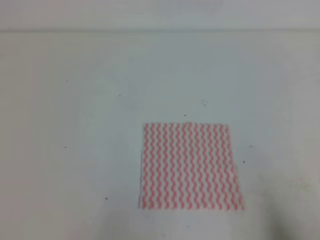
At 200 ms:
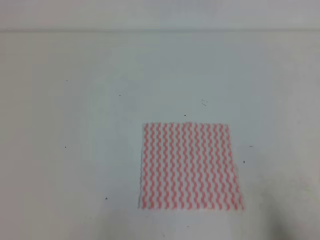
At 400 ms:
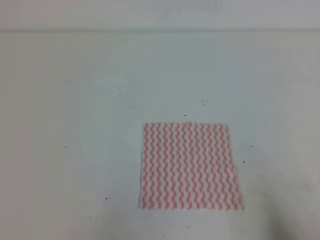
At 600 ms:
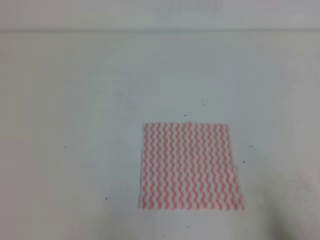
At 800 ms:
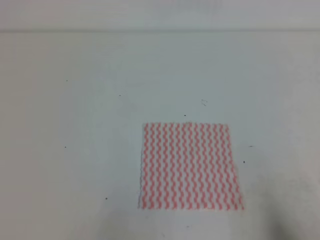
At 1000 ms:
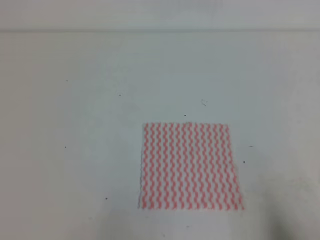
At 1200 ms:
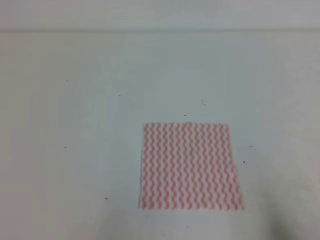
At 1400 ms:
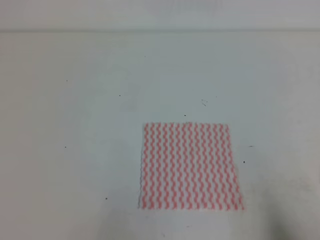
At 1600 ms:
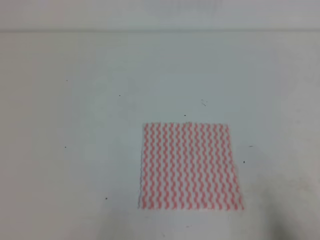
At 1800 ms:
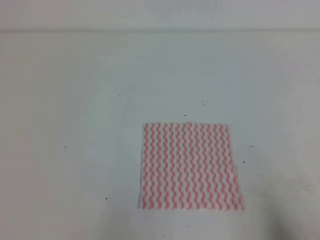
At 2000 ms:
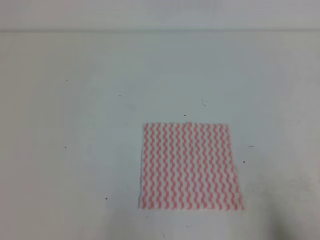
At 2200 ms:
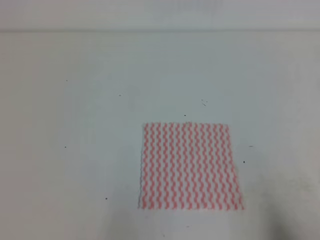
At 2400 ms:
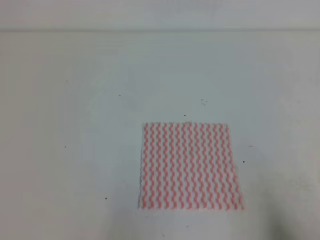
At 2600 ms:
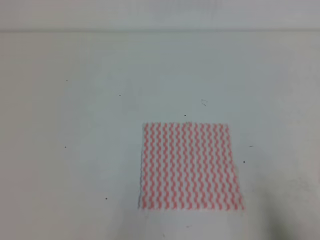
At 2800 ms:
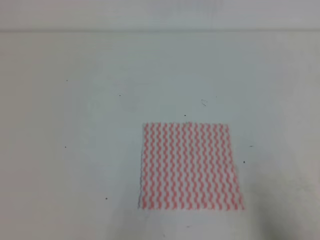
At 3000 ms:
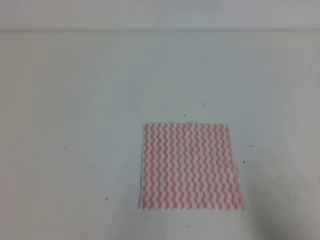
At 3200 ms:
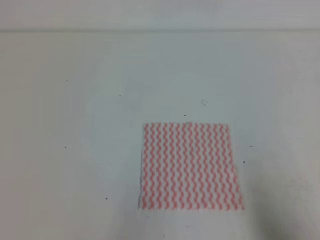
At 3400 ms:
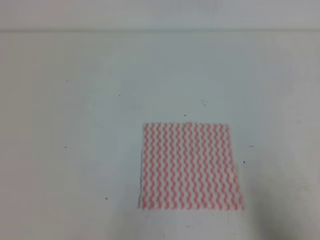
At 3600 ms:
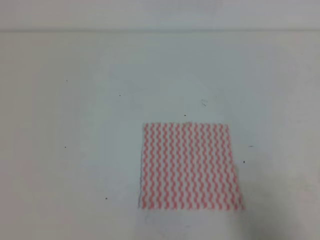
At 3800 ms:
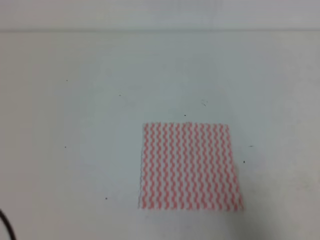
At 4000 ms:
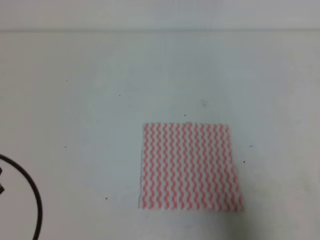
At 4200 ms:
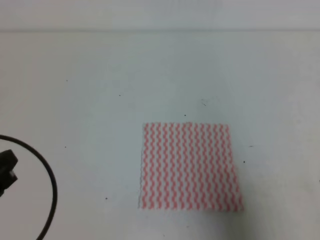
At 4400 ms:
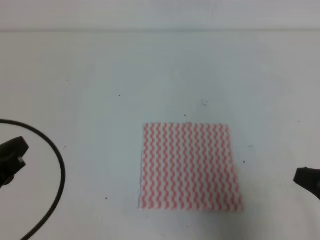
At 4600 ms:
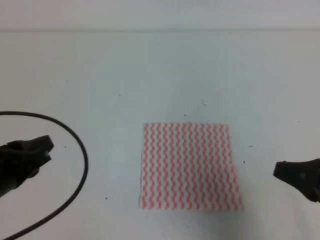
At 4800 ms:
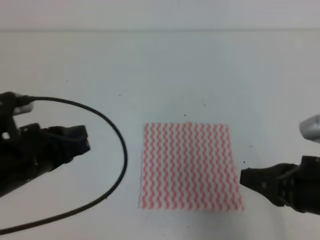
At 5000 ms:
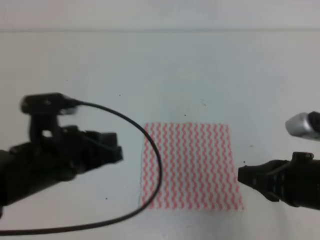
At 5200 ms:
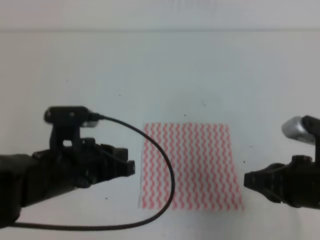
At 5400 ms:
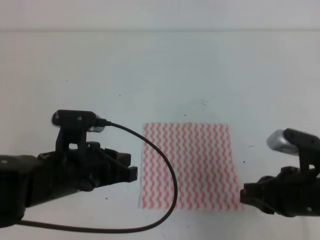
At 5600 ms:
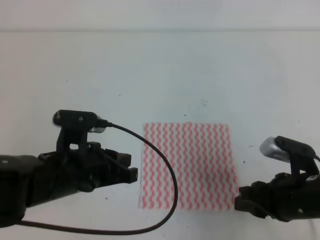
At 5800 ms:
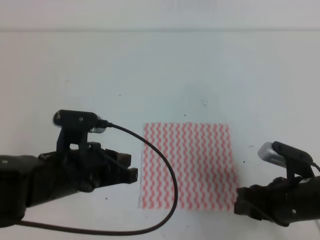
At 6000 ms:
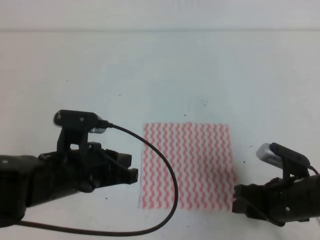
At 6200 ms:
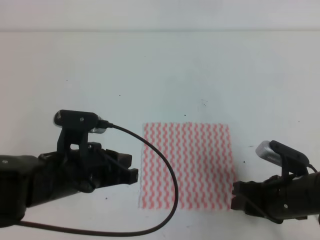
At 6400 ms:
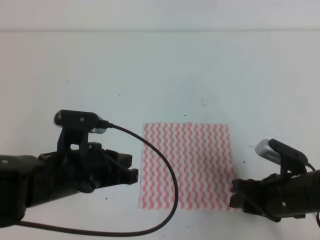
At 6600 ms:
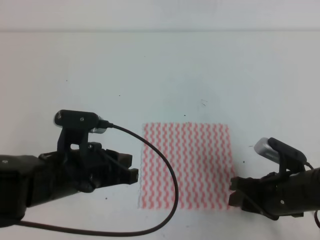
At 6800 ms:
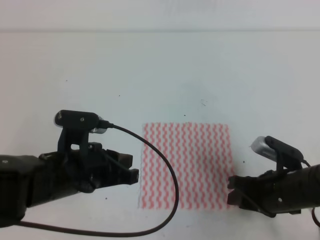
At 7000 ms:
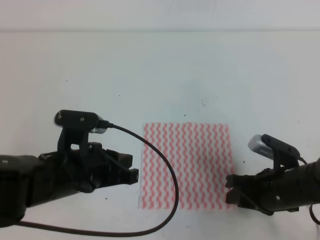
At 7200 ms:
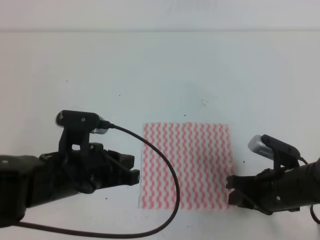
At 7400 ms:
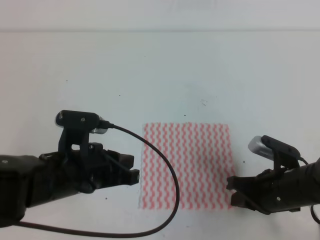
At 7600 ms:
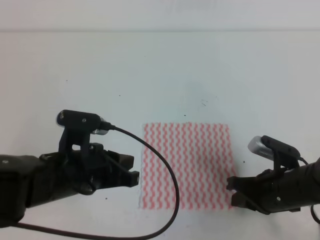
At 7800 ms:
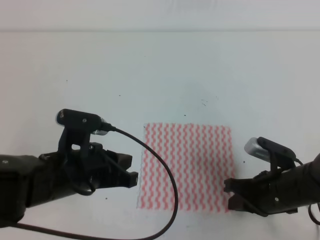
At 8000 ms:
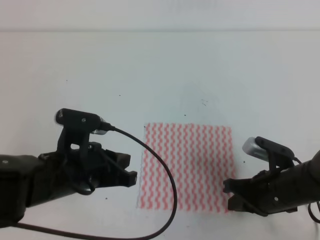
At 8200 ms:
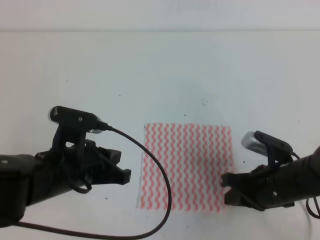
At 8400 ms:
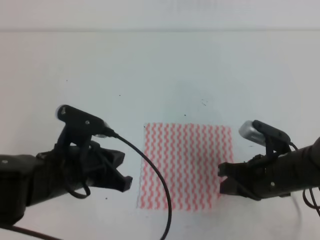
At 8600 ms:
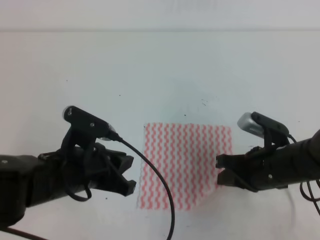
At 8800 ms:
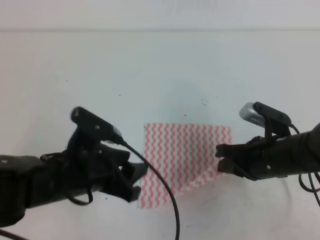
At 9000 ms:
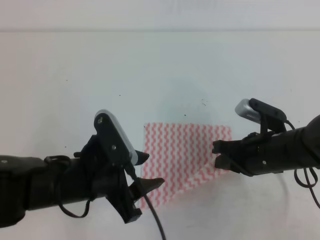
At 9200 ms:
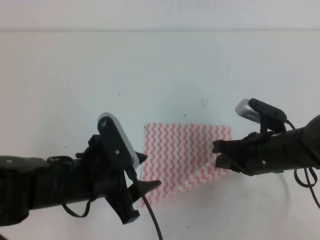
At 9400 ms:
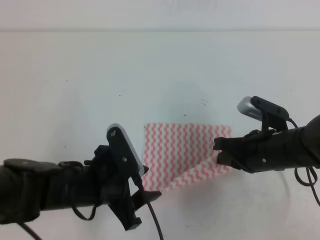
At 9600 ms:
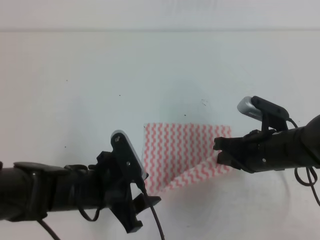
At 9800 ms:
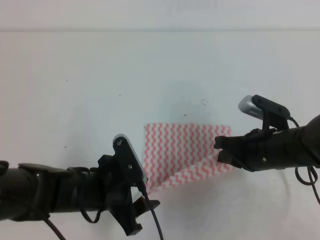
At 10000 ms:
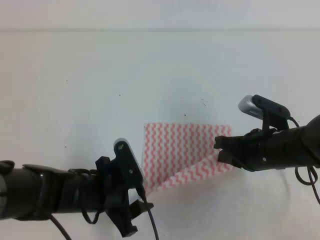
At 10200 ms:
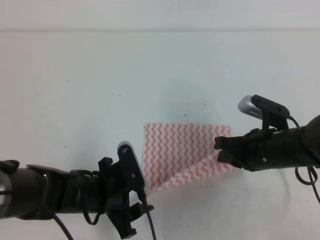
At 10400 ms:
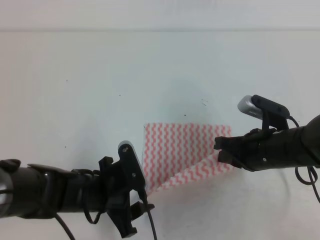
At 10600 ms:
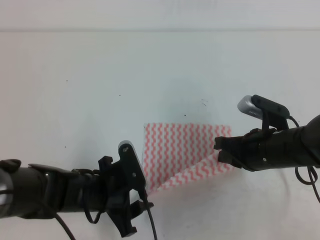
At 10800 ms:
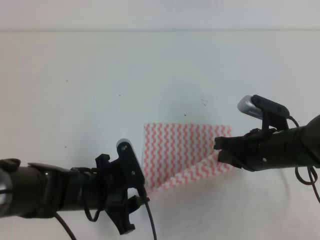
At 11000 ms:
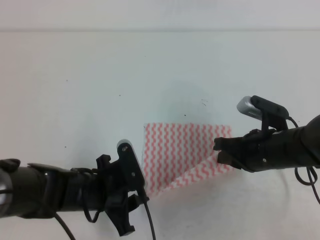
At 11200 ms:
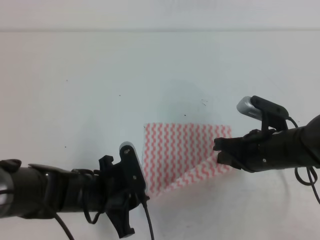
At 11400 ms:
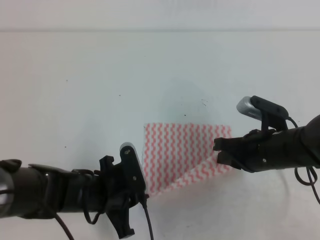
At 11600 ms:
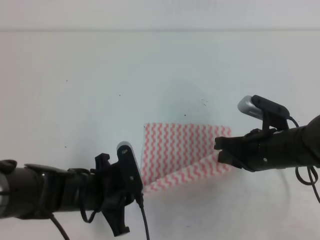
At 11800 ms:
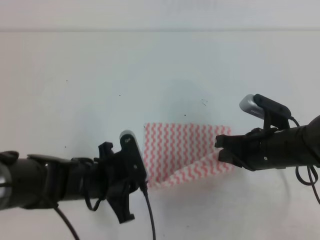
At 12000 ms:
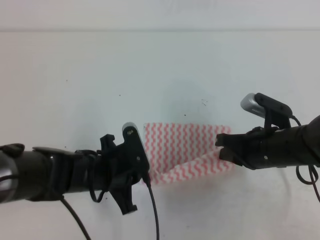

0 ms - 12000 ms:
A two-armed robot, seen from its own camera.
0 ms - 1600 ms: Both grippers stay about where they are.
3000 ms - 4400 ms: Both grippers move forward and upward, approximately 10 cm.
4400 ms - 6000 ms: The right gripper travels downward, forward and to the left by about 15 cm, and opens; the left gripper is displaced to the right and forward by some 15 cm.
6000 ms - 7600 ms: The right gripper closes its fingers.
7600 ms - 9000 ms: The right gripper moves upward, about 5 cm. Meanwhile the left gripper opens.
9000 ms - 10400 ms: The left gripper travels downward by approximately 10 cm.
10400 ms - 12000 ms: The left gripper closes.

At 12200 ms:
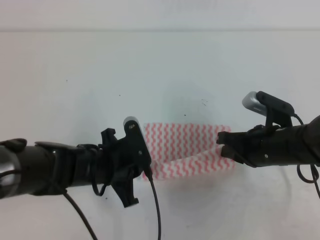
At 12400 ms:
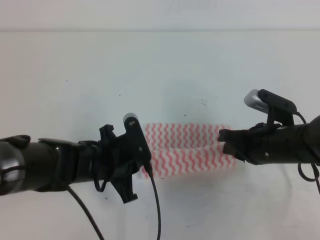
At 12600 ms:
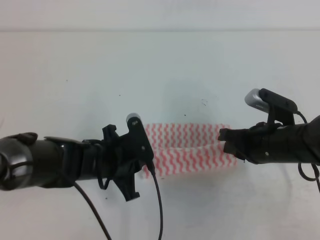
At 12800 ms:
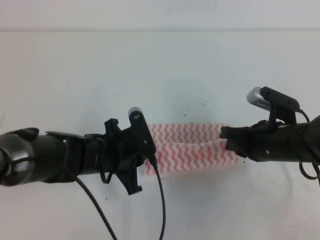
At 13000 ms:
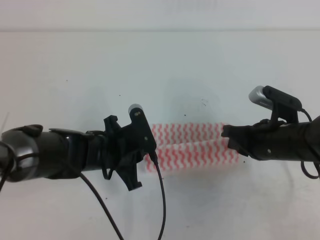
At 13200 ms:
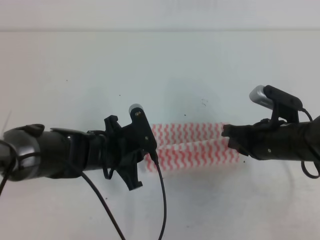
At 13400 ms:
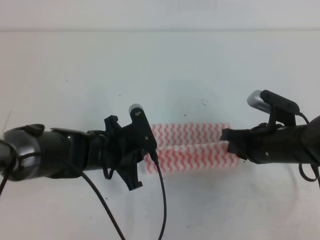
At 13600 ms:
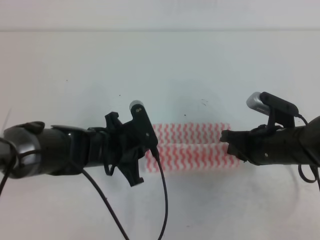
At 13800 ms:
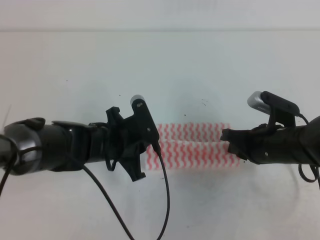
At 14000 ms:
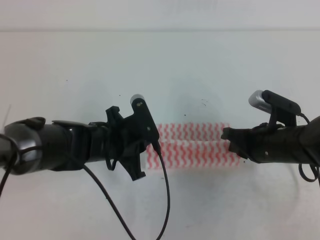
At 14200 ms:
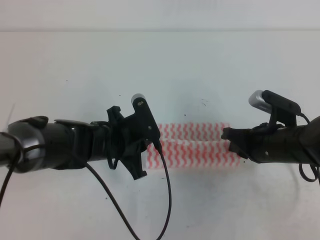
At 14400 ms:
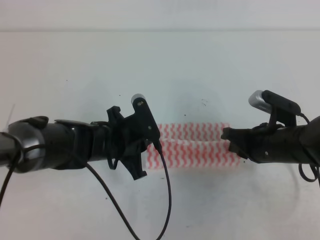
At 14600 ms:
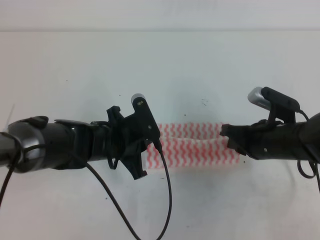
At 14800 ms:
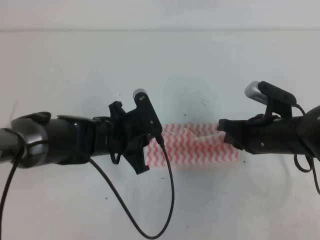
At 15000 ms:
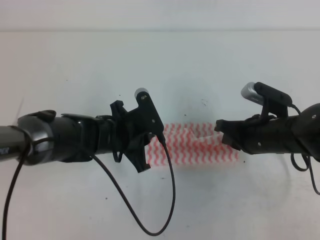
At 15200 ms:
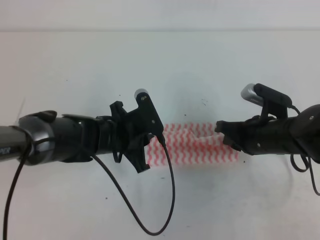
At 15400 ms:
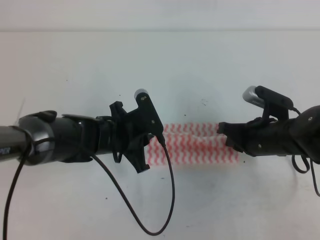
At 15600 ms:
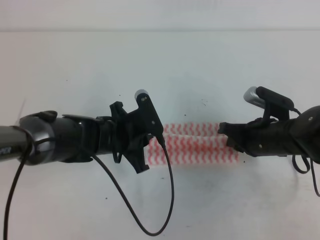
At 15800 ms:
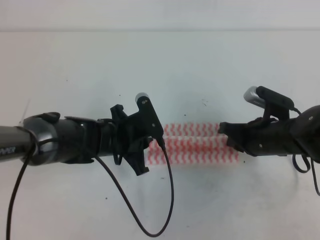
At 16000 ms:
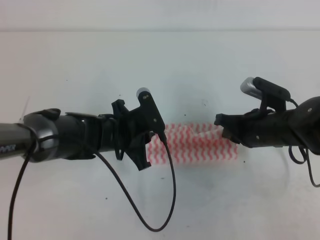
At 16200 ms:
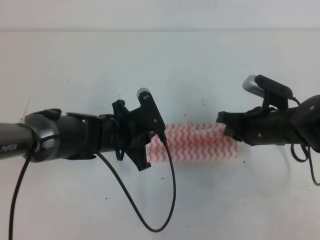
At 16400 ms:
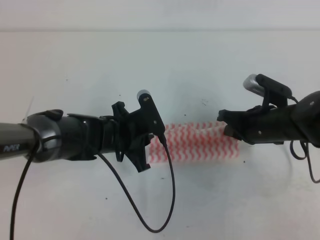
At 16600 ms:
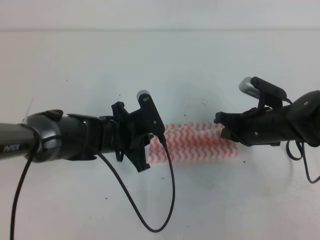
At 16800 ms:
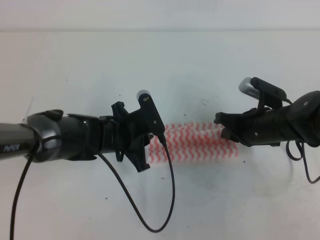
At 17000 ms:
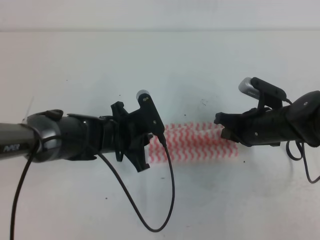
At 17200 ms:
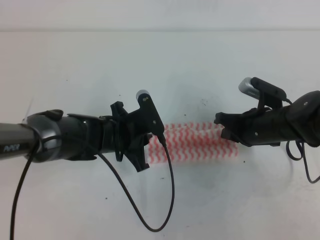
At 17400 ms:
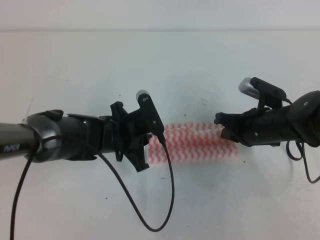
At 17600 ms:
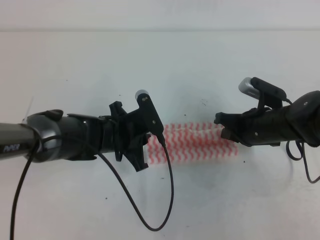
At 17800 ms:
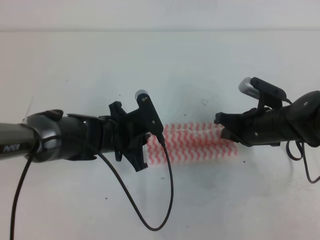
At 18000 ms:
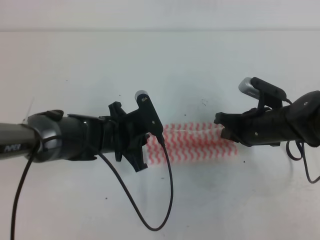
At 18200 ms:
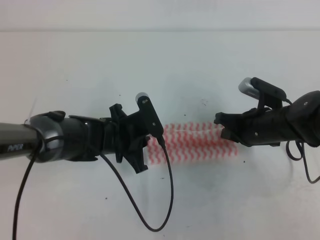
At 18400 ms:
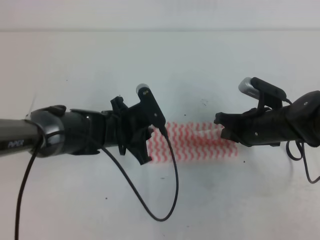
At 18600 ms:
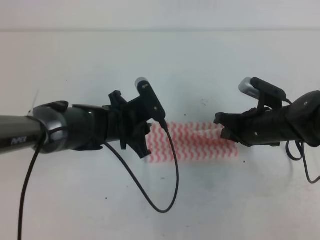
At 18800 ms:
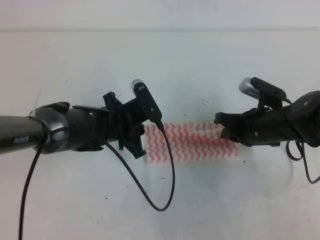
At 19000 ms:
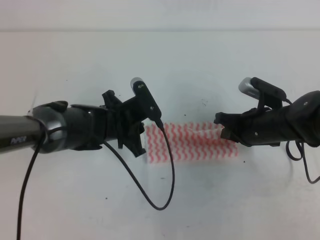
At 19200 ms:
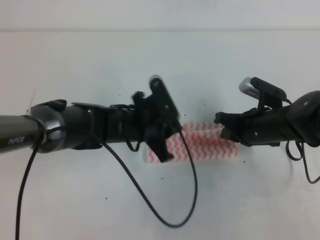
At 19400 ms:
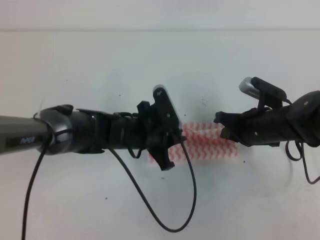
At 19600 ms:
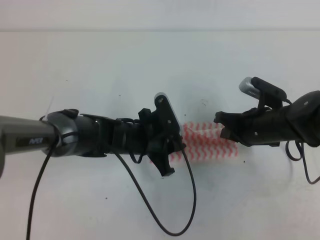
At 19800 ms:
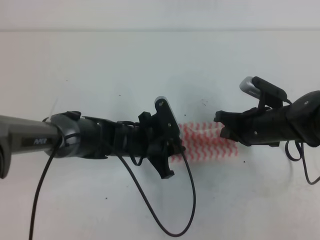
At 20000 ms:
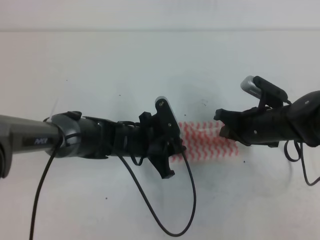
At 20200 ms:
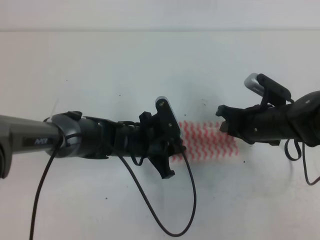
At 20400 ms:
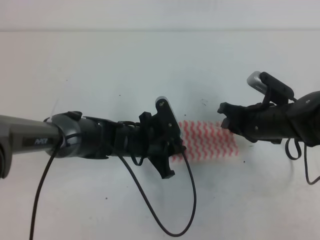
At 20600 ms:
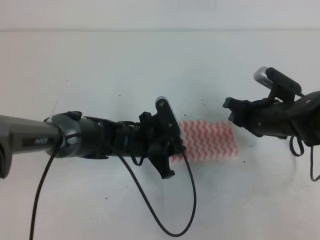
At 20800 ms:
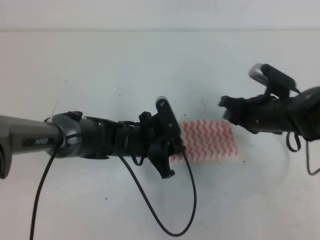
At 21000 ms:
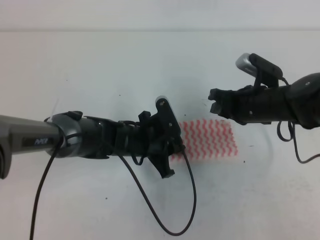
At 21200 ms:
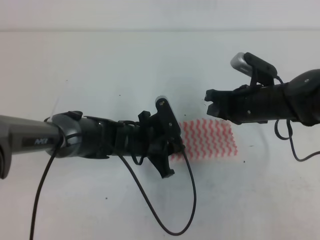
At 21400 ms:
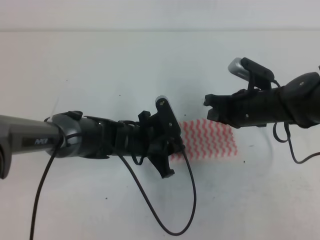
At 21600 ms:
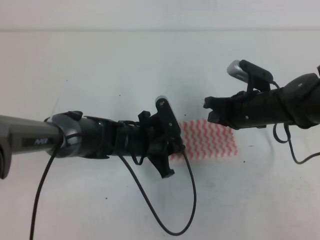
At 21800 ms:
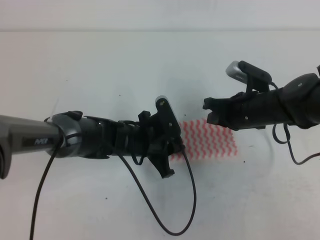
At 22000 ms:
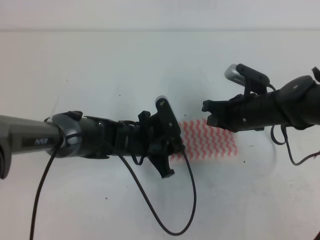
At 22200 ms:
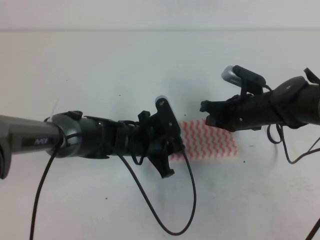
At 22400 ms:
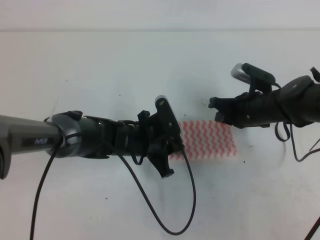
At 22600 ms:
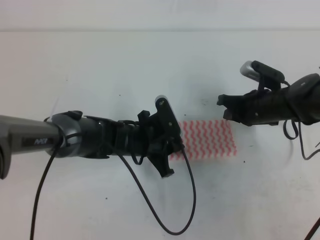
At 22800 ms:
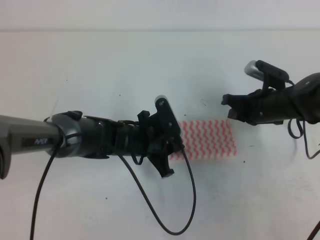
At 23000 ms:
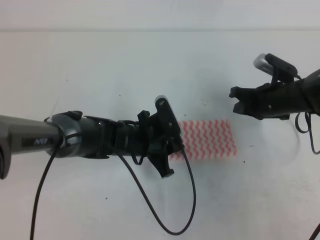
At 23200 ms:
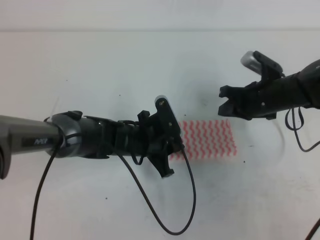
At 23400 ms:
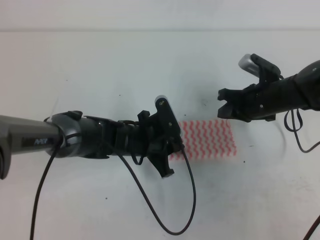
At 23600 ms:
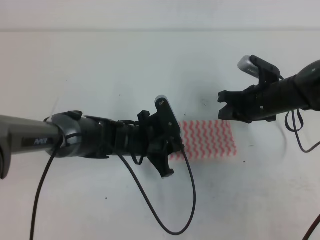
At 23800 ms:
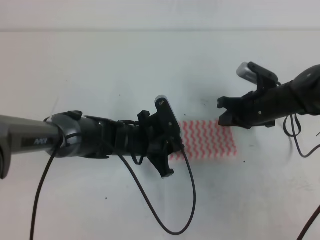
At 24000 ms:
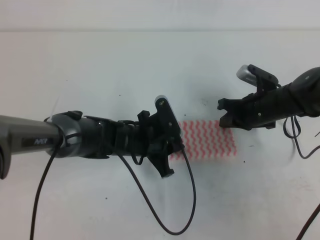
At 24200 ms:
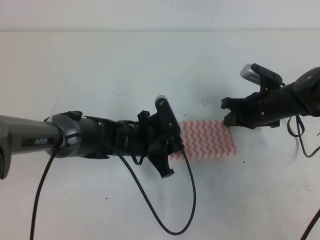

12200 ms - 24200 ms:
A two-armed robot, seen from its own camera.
12200 ms - 13800 ms: The grippers make only small movements.
13800 ms - 16600 ms: There are only small adjustments of the grippers.
16600 ms - 18200 ms: The two grippers keep their place.
19800 ms - 21200 ms: The right gripper opens, then closes once more.
21200 ms - 22600 ms: The right gripper changes place by roughly 5 cm.
22600 ms - 24200 ms: The grippers move only a little.
